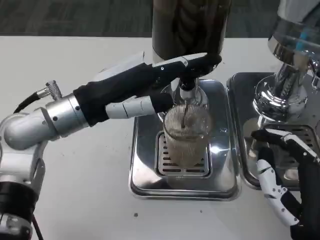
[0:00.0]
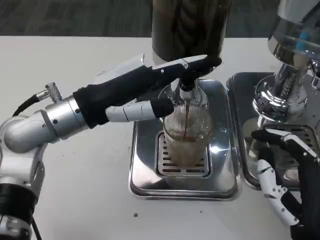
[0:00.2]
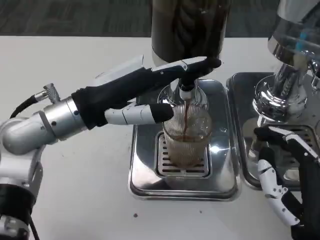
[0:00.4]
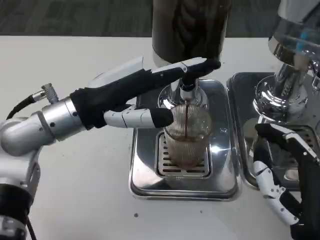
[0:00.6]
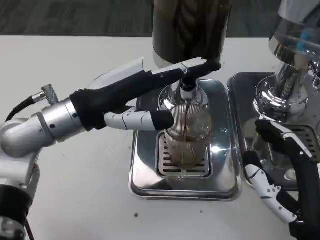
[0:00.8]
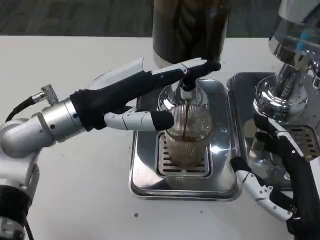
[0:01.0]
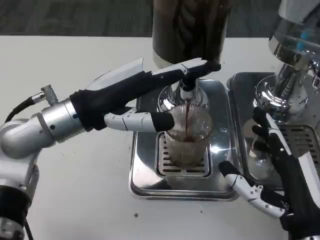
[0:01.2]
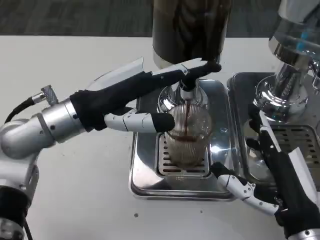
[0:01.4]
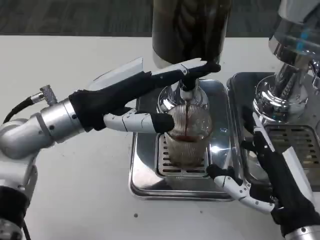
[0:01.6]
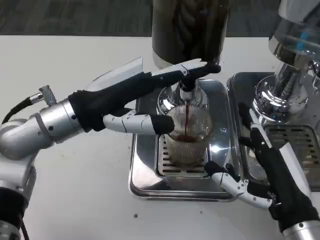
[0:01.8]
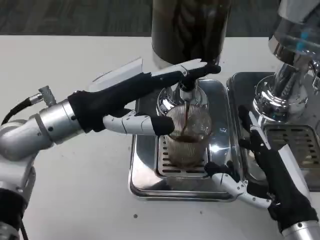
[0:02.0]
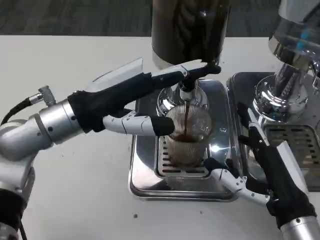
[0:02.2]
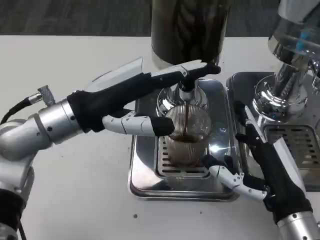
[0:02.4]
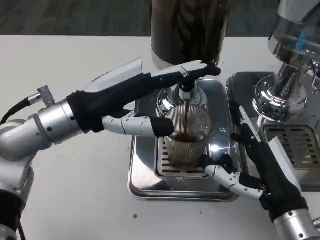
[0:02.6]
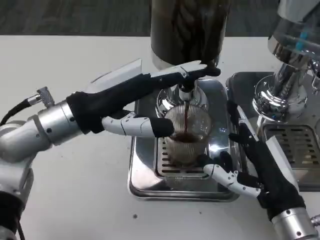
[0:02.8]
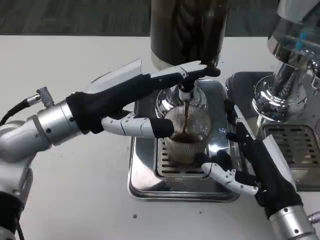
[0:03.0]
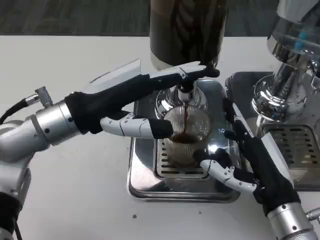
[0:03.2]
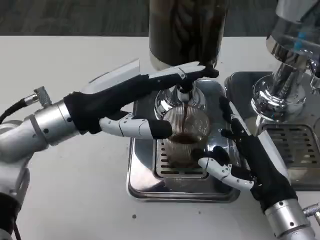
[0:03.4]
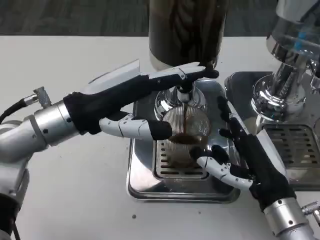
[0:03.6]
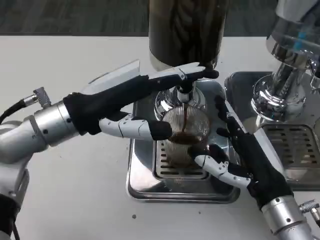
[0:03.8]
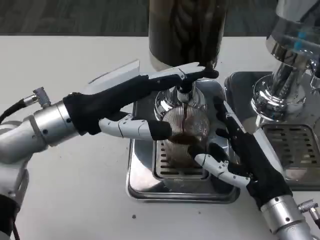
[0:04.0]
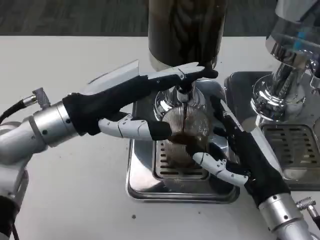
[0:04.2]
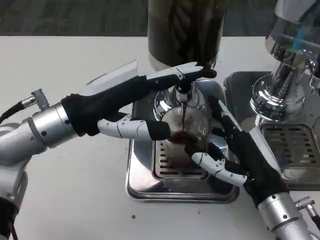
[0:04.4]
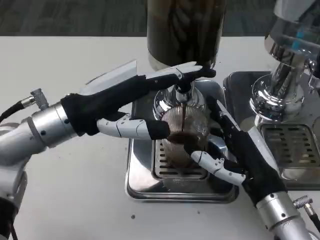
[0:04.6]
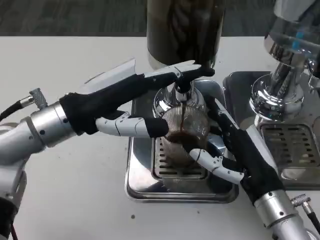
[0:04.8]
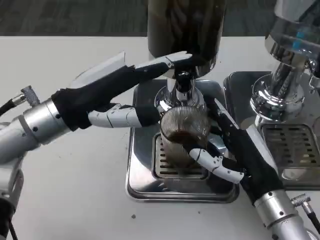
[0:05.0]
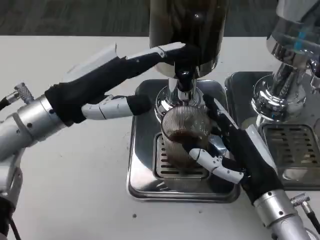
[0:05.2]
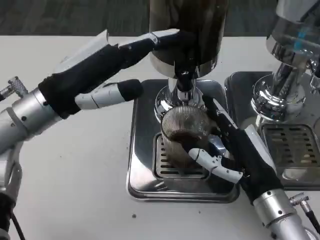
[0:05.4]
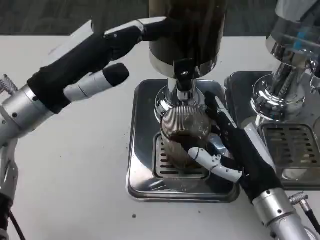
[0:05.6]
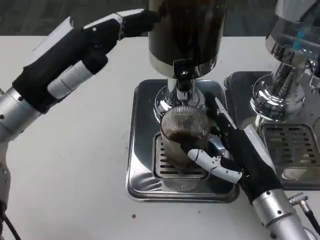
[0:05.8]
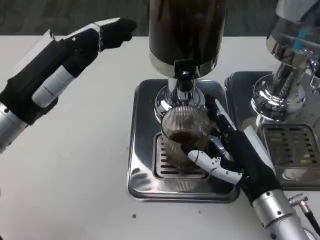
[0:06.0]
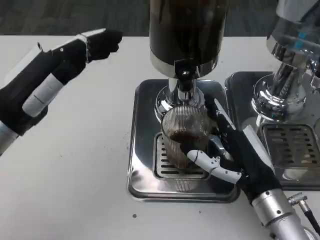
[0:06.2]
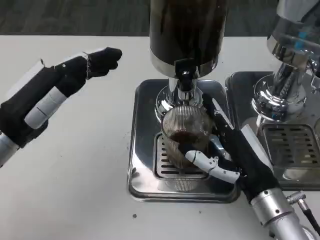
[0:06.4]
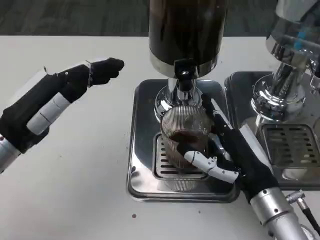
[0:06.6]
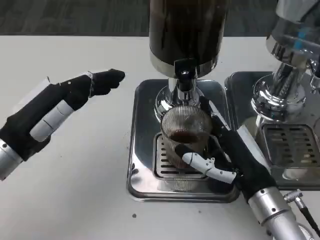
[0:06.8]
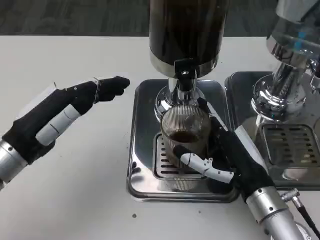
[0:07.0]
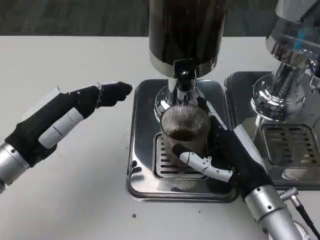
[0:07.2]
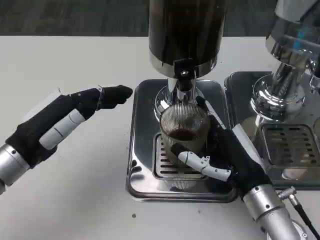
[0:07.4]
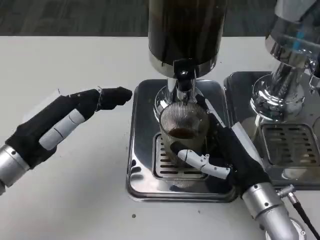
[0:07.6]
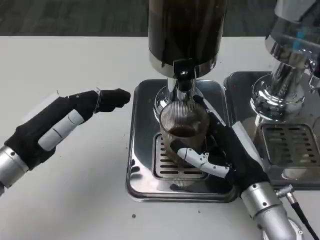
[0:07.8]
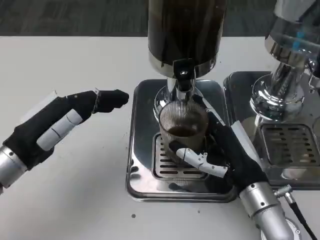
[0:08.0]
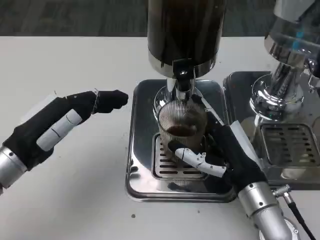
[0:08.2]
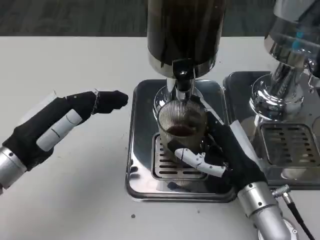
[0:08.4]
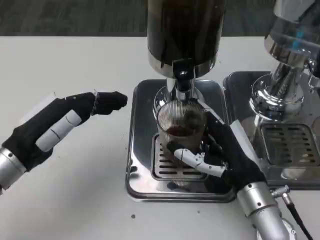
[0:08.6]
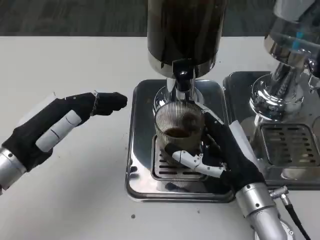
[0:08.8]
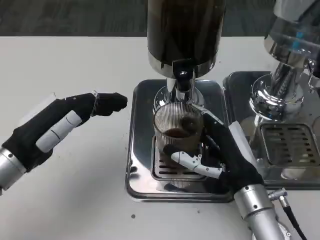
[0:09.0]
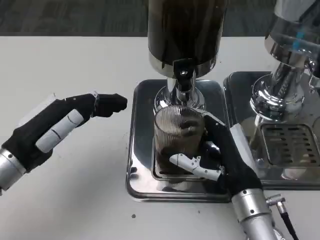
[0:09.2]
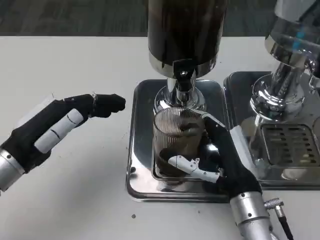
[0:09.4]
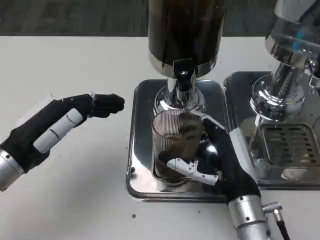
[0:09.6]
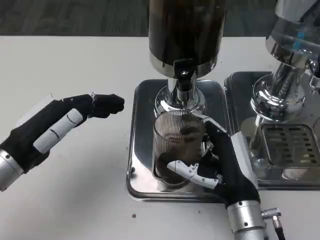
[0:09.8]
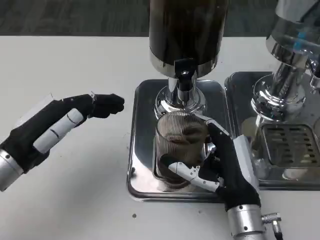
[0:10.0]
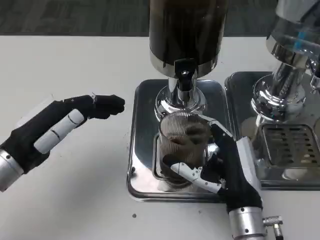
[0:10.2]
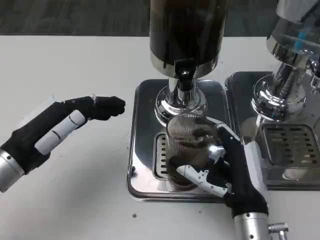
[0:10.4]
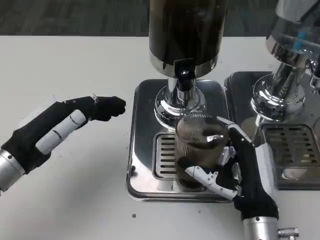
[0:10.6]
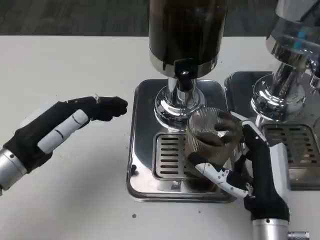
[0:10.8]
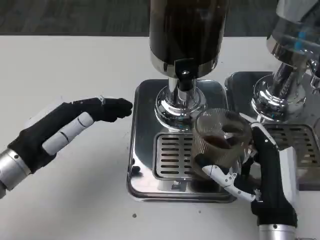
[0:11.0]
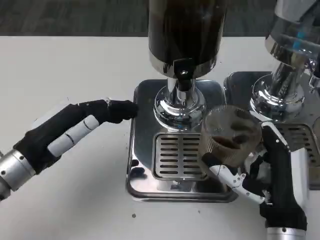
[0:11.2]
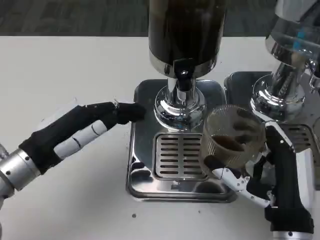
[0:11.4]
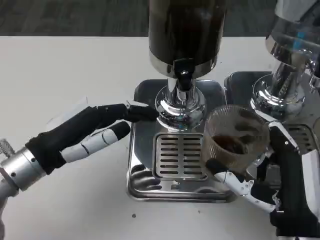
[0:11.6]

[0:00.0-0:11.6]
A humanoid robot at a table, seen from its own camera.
Task of the whole recording: Grasp the cup under the faucet to collect the drink, then remove the cup.
0:01.4 to 0:02.8: There are only small adjustments of the hands.
0:05.8 to 0:07.2: The left hand is displaced downward by approximately 5 cm.
0:07.2 to 0:10.2: The hands stay close to where they were, moving slightly.
0:10.2 to 0:11.6: The right hand goes about 5 cm backward.

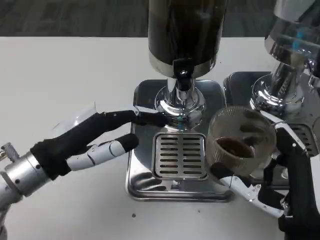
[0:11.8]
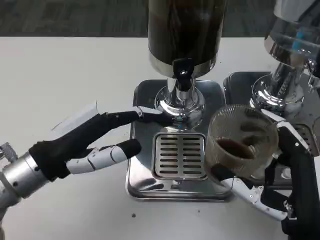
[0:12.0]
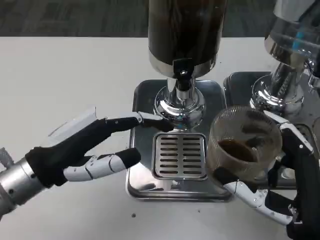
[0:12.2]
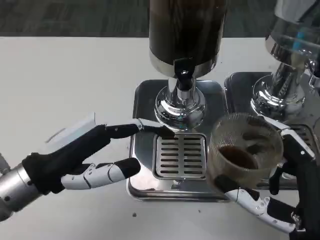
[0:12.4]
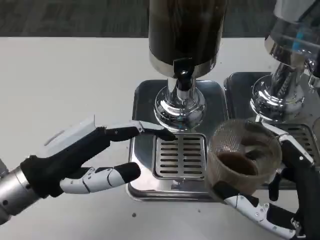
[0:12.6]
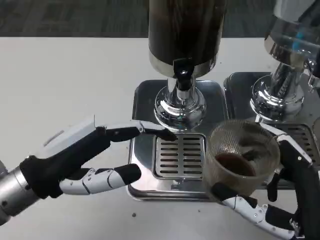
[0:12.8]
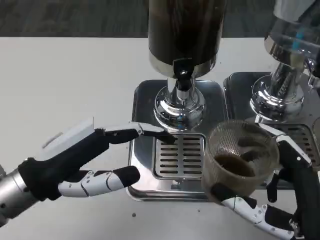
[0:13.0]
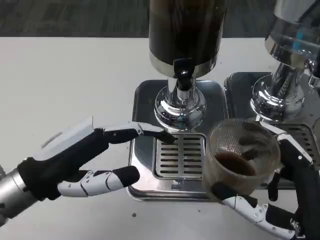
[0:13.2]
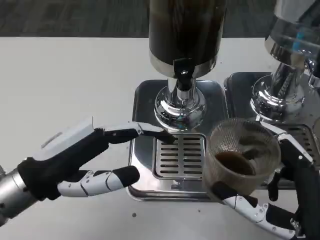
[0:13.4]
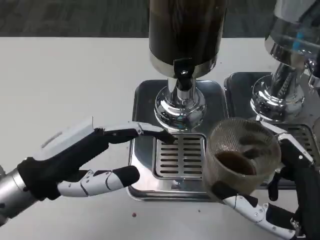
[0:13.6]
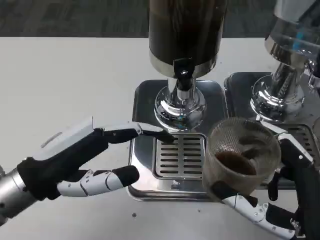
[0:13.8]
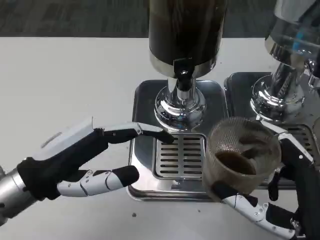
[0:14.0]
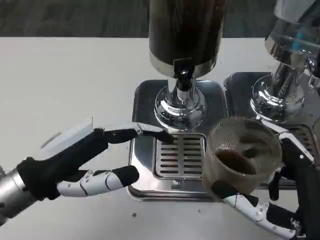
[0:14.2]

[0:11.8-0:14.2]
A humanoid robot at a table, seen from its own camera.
Task of the whole recording: Grasp the cup under the faucet to collect the drink, then remove the cup.
0:13.0 to 0:14.2: Both hands stay put.

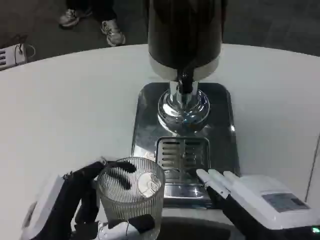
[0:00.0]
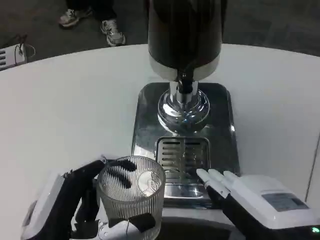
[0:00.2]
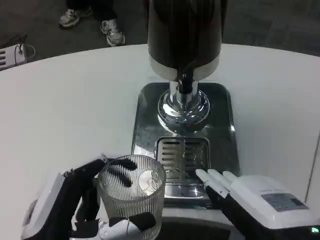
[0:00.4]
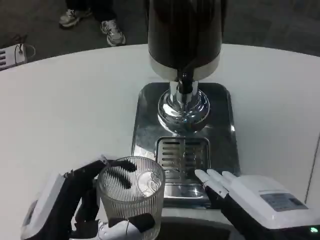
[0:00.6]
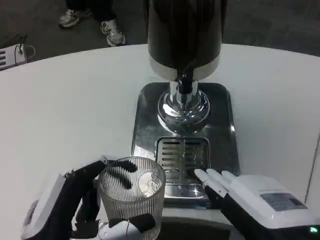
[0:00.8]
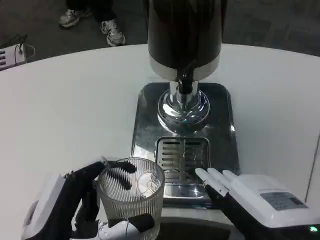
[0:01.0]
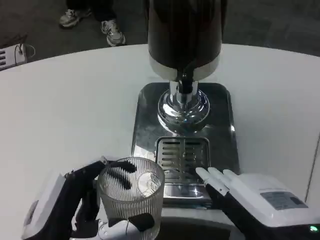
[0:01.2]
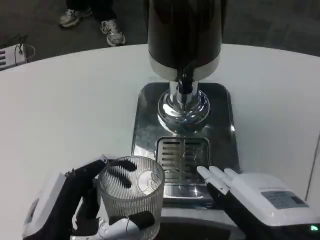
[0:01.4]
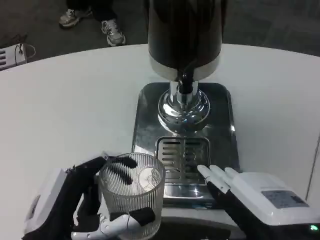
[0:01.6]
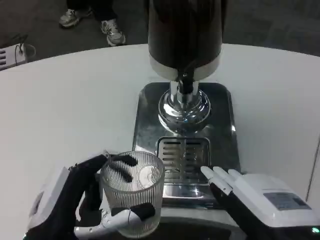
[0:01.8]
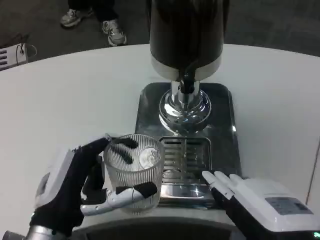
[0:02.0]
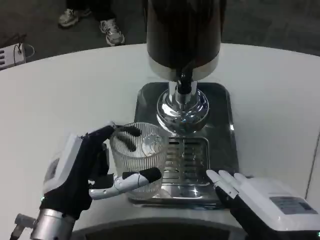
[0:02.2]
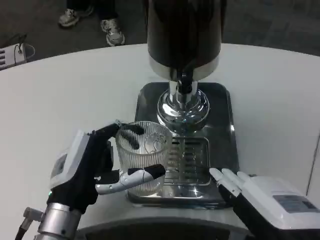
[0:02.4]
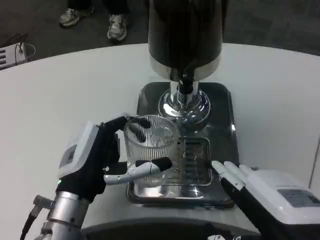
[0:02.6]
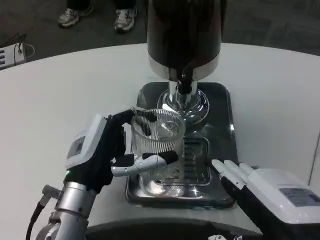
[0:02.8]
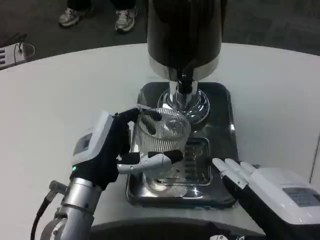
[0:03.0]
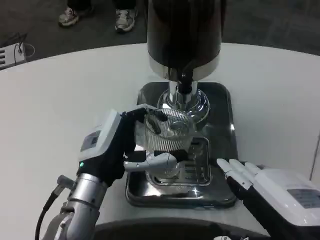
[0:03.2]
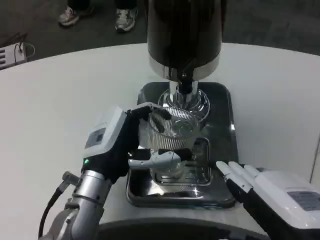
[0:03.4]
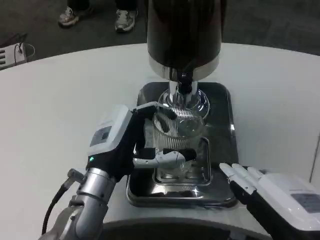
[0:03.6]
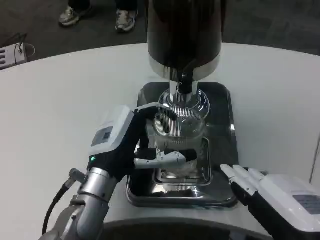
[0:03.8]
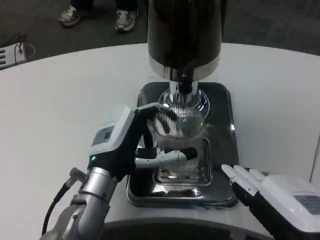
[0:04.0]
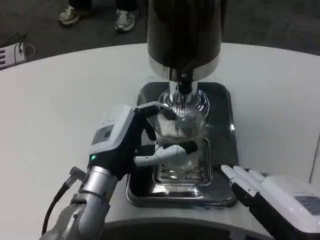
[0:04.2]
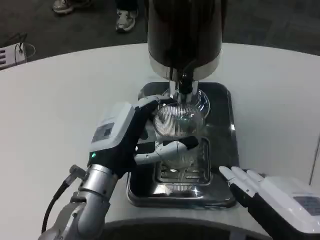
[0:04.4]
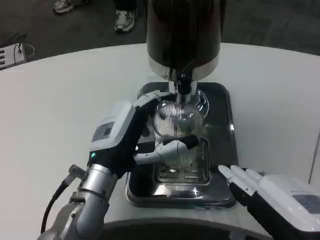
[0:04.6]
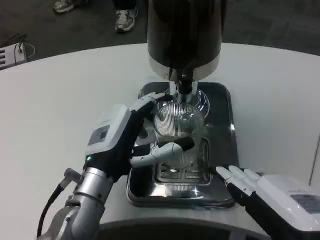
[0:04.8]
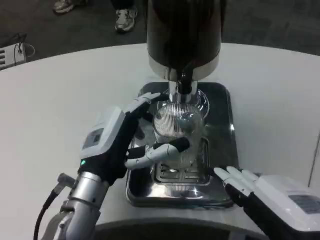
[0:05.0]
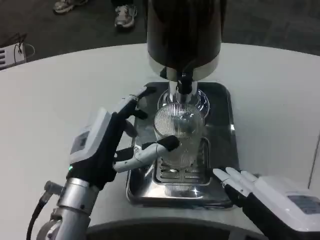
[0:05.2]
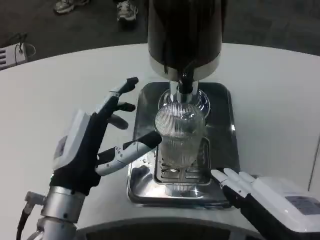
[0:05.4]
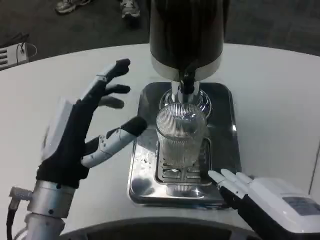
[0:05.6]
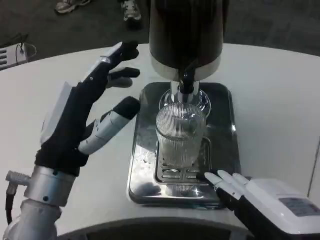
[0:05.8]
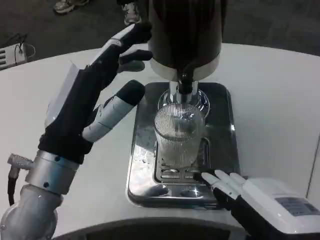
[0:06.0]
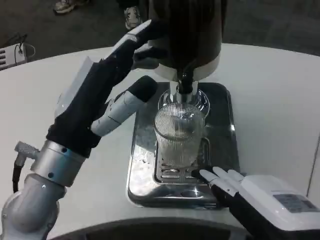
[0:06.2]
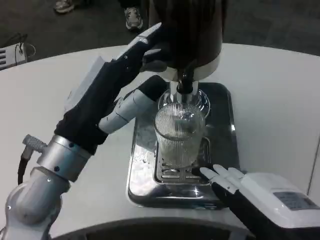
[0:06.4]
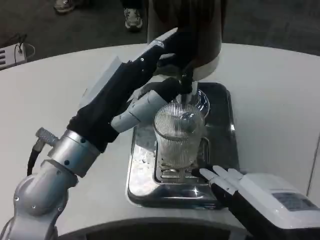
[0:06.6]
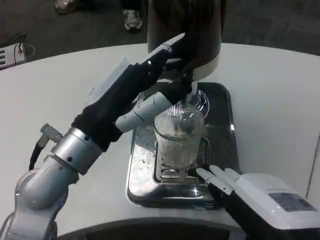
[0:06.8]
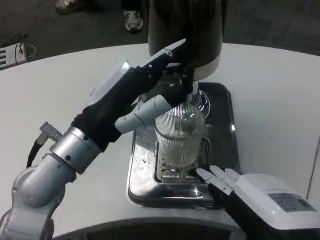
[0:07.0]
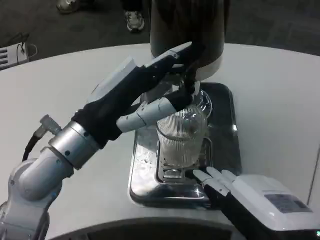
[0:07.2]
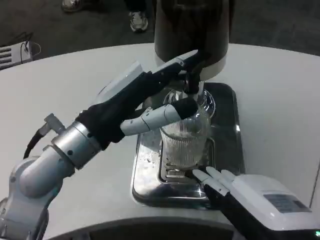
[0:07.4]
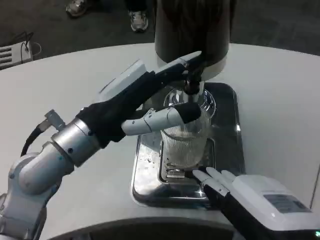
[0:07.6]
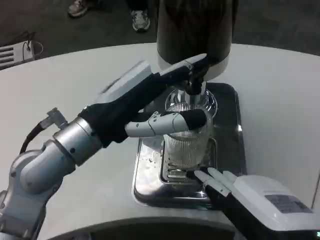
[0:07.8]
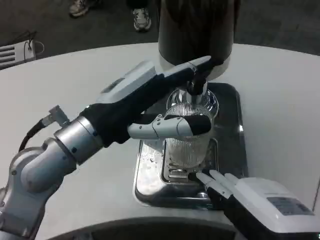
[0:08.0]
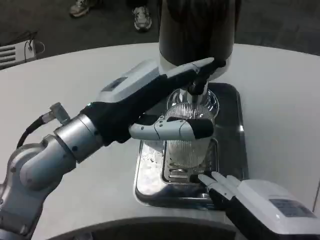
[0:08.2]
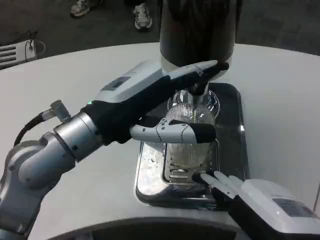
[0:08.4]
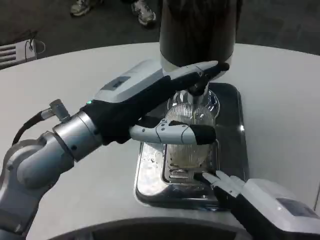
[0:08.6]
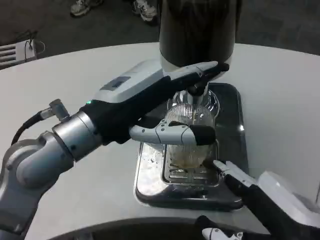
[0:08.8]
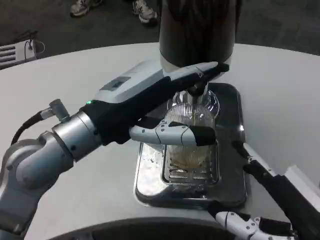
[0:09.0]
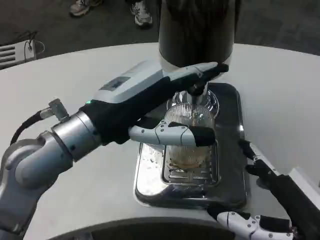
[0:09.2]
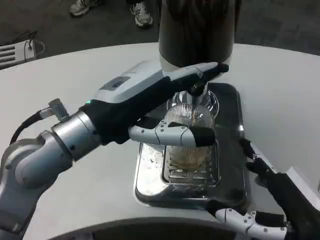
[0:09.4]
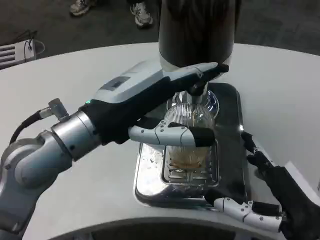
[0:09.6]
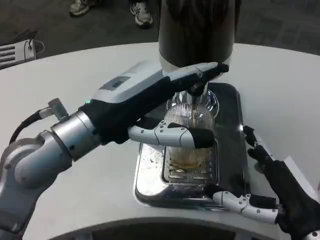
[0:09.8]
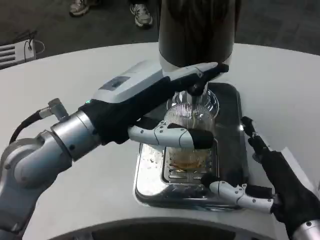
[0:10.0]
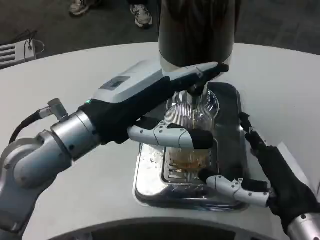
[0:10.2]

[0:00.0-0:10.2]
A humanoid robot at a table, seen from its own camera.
Task of the whole recording: Grasp the cup under the faucet to collect the drink, then remove the cup.
0:00.0 to 0:01.4: The two hands keep their place.
0:01.4 to 0:03.0: The left hand is displaced forward by some 10 cm.
0:03.0 to 0:04.4: The hands make only small movements.
0:04.4 to 0:05.8: The left hand shifts roughly 5 cm backward.
0:05.8 to 0:07.2: The left hand ends up about 5 cm from where it was.
0:08.8 to 0:10.2: The right hand moves forward, roughly 10 cm.
